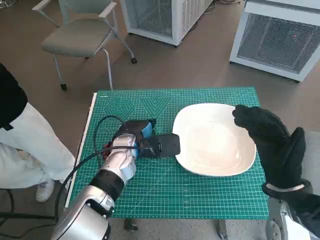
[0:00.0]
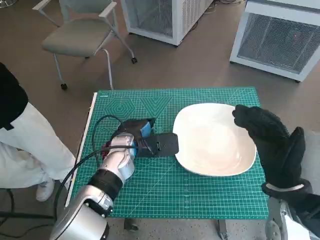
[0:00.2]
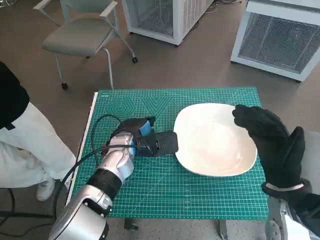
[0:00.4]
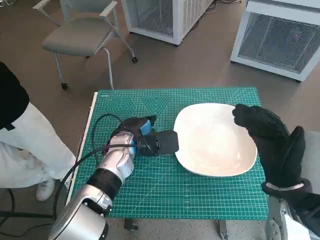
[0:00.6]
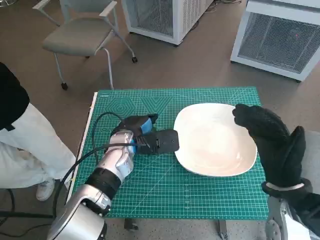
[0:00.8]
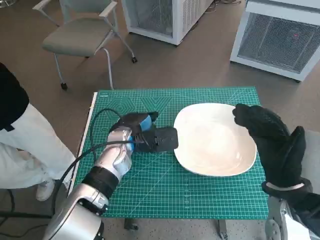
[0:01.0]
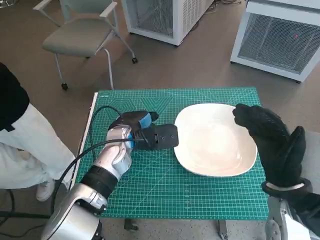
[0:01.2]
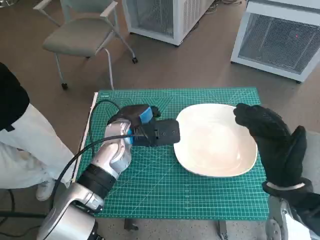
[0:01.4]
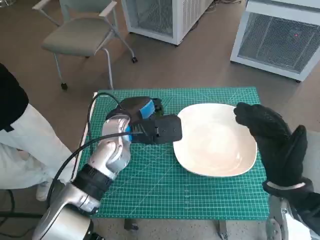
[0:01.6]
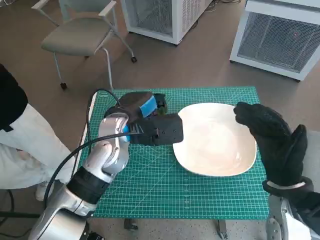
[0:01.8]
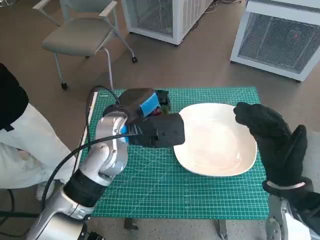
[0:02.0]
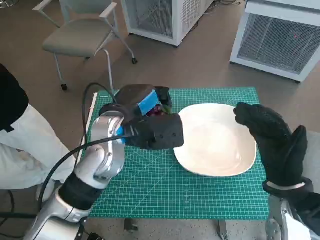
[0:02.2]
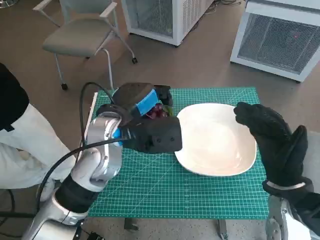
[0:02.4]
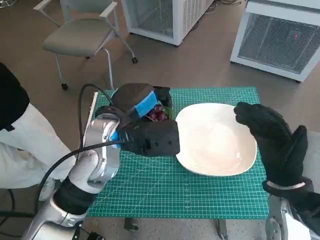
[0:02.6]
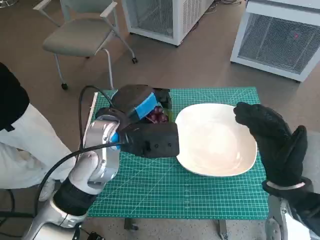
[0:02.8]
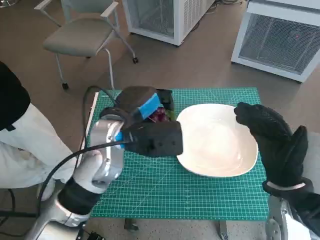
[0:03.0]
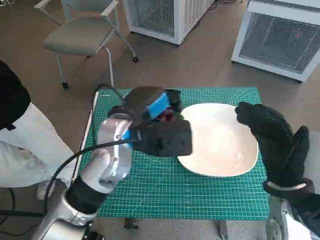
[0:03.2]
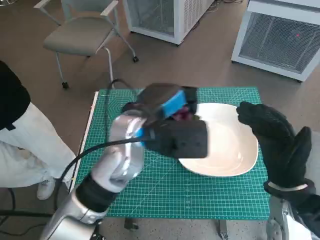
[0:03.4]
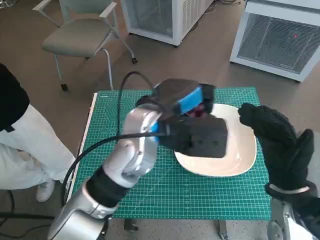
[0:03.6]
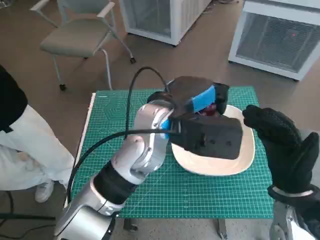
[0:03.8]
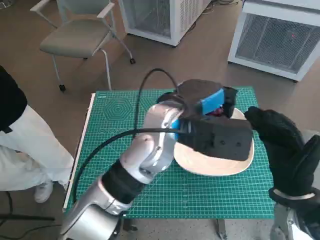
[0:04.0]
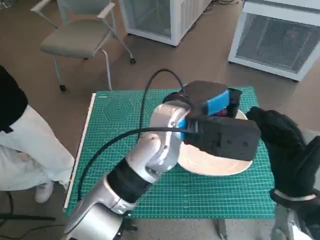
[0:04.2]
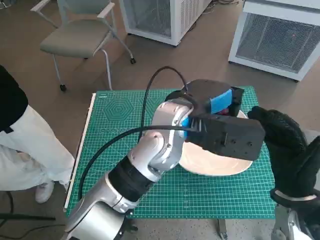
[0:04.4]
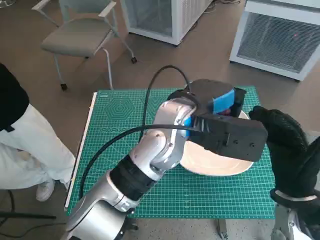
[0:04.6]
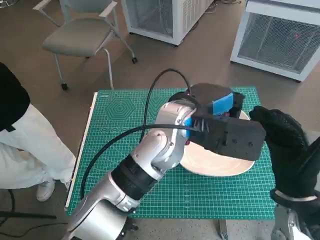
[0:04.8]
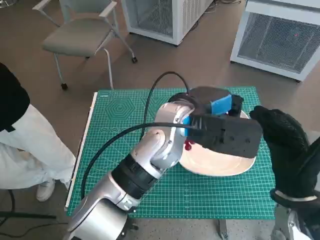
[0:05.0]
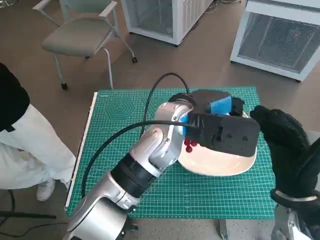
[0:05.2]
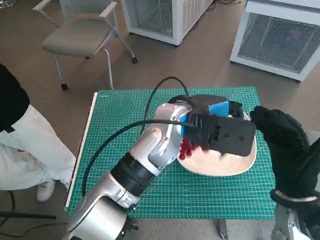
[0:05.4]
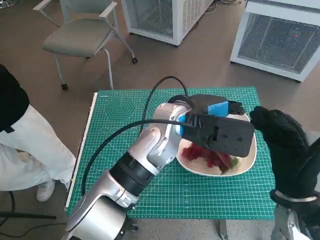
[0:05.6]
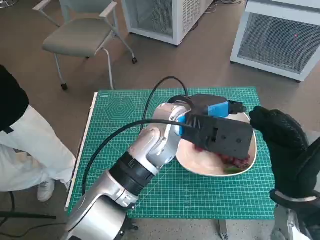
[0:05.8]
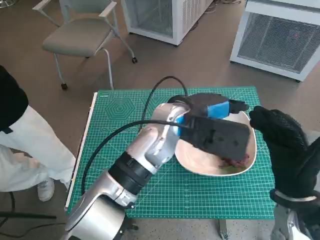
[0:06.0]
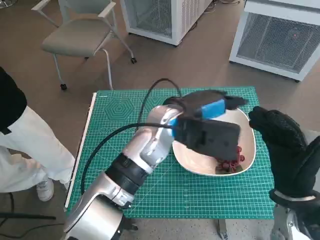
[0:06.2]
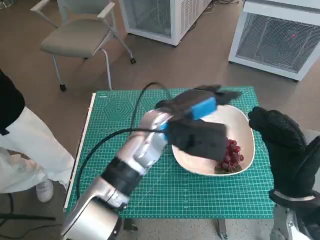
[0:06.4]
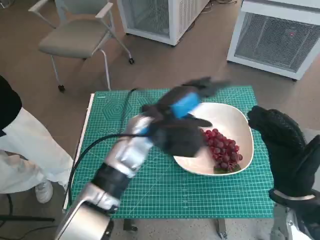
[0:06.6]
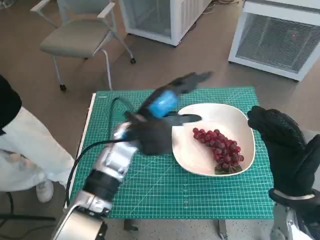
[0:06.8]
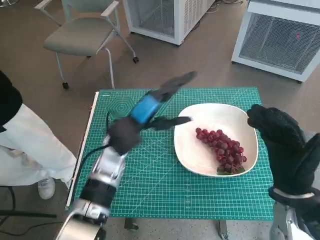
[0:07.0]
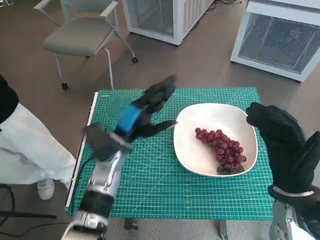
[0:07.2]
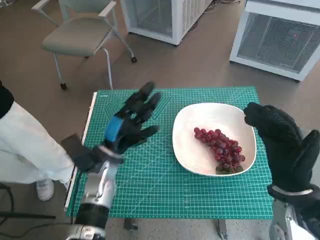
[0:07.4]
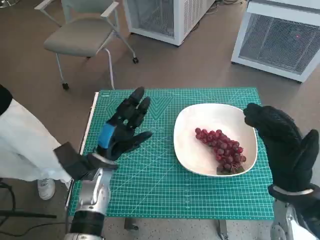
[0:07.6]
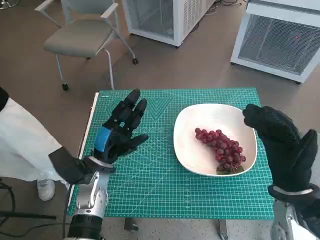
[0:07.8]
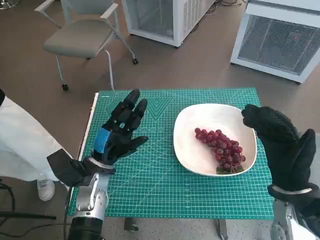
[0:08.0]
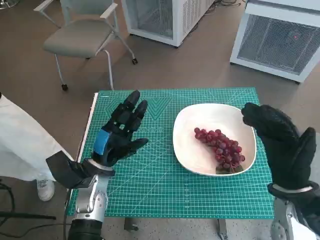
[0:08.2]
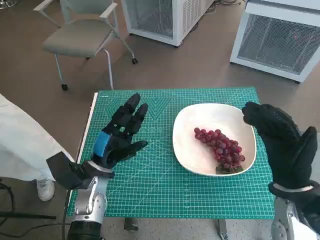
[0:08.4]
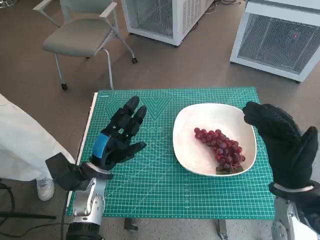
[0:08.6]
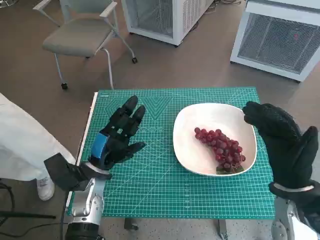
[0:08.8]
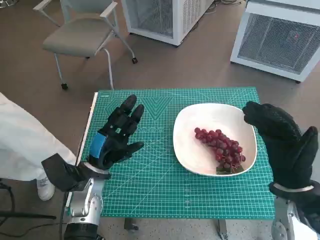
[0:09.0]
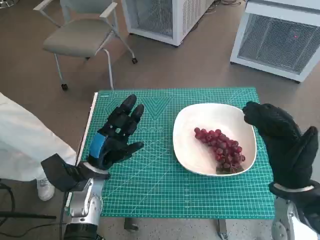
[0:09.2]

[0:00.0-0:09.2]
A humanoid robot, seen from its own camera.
Task of the whole recording: Pick up the grapes and put them on the plate.
Step, 0:00.4 to 0:05.8: Place the grapes in the plate with left hand.
0:00.0 to 0:01.6: The left hand shifts some 5 cm upward.
0:01.6 to 0:03.0: The left hand moves about 5 cm.
0:03.0 to 0:04.6: The left hand shifts approximately 10 cm to the right.
0:04.6 to 0:06.2: The hands move only a little.
0:06.2 to 0:07.6: The left hand travels to the left and downward by roughly 20 cm.
0:07.6 to 0:09.2: The hands move only a little.

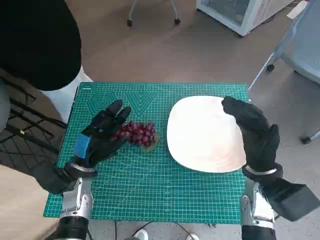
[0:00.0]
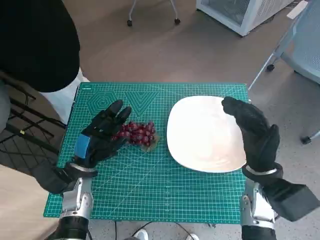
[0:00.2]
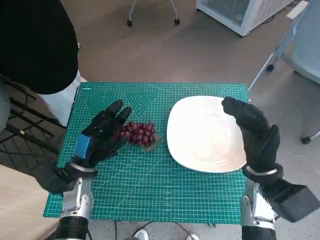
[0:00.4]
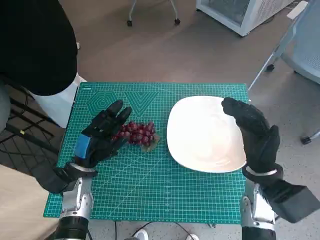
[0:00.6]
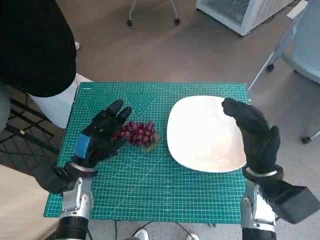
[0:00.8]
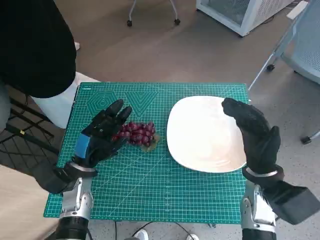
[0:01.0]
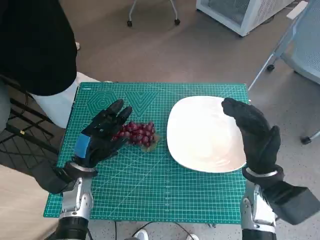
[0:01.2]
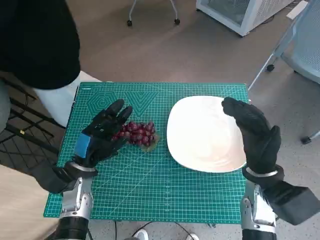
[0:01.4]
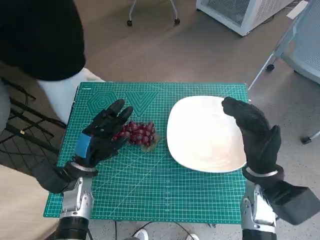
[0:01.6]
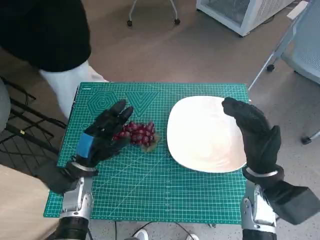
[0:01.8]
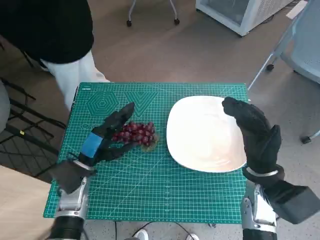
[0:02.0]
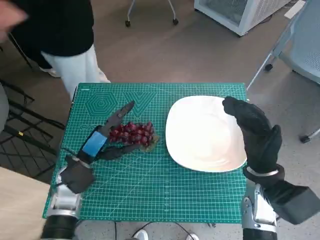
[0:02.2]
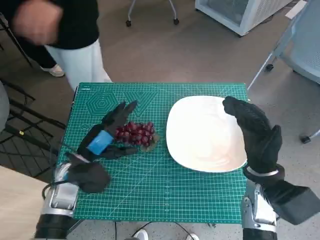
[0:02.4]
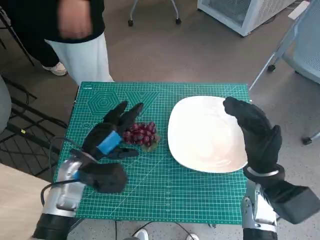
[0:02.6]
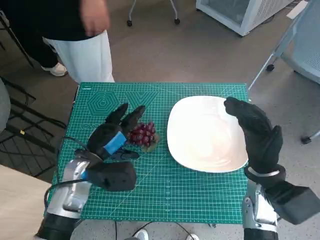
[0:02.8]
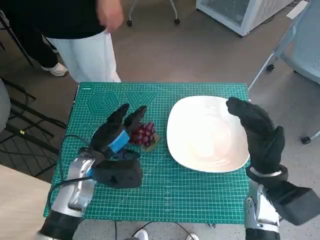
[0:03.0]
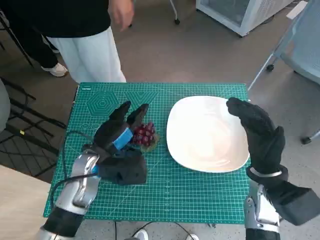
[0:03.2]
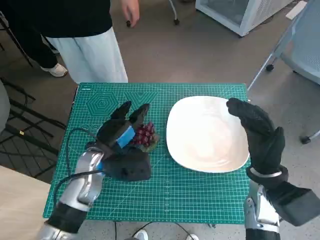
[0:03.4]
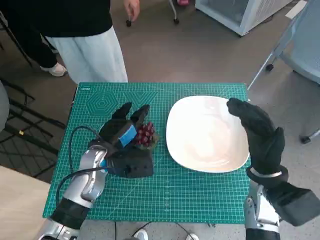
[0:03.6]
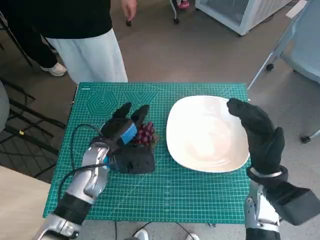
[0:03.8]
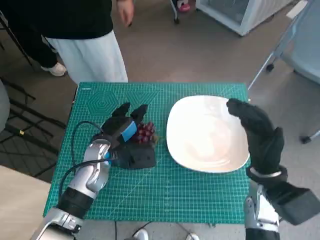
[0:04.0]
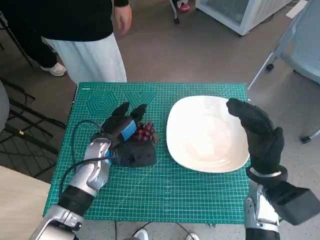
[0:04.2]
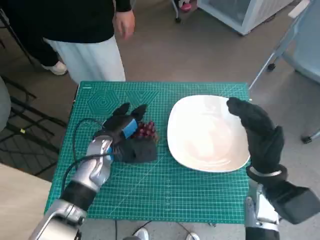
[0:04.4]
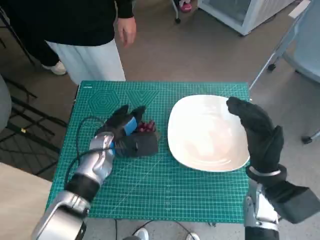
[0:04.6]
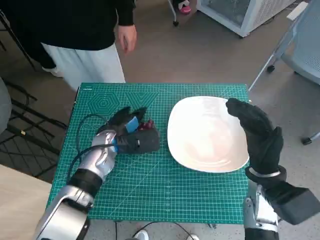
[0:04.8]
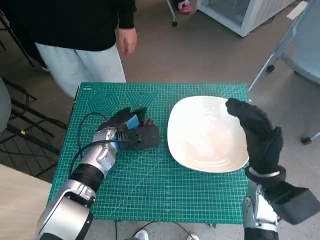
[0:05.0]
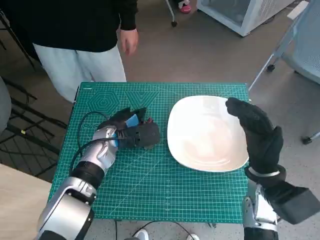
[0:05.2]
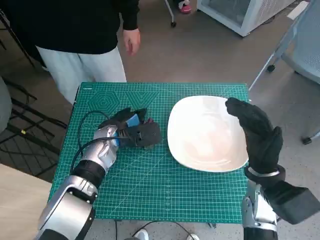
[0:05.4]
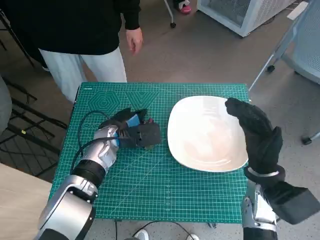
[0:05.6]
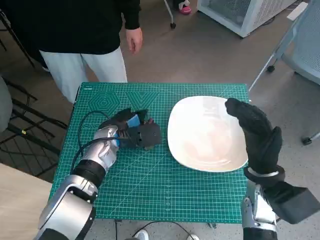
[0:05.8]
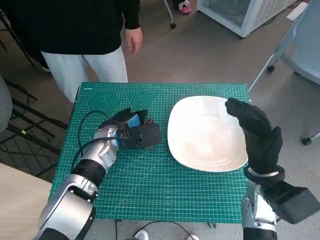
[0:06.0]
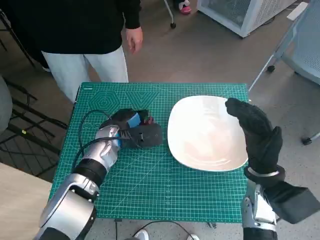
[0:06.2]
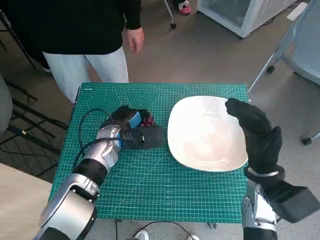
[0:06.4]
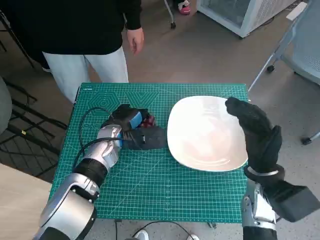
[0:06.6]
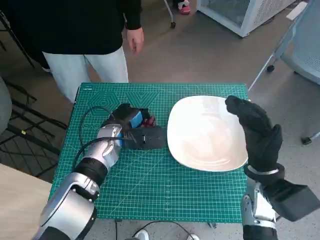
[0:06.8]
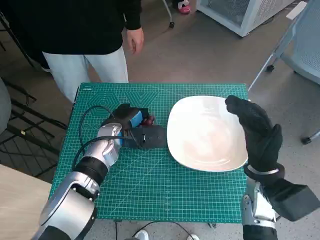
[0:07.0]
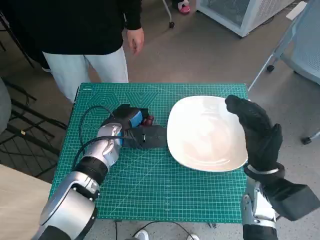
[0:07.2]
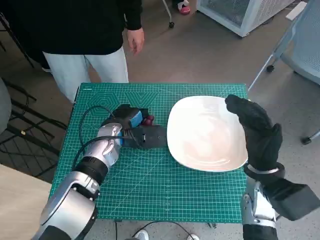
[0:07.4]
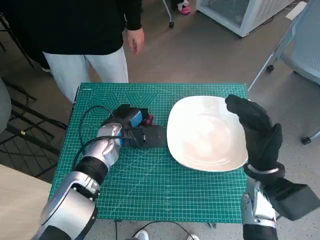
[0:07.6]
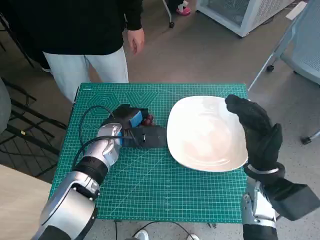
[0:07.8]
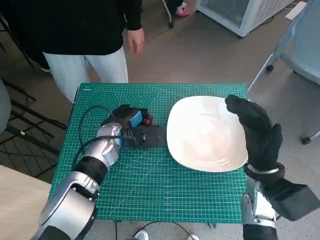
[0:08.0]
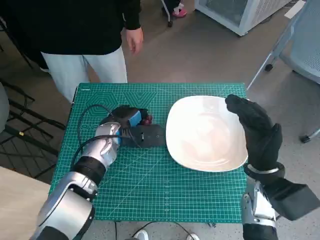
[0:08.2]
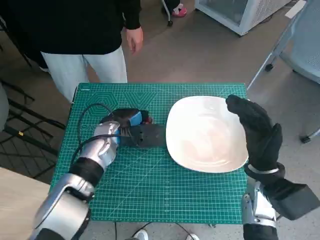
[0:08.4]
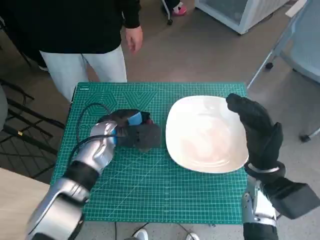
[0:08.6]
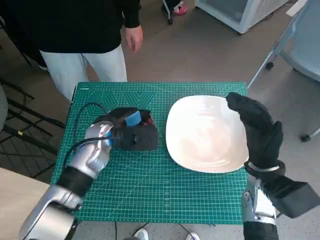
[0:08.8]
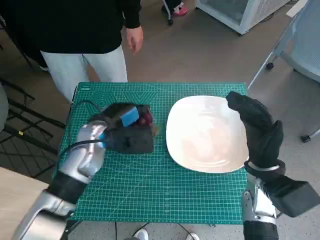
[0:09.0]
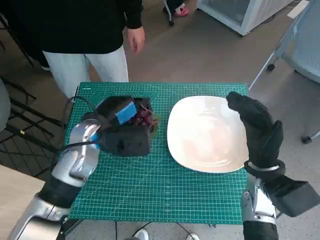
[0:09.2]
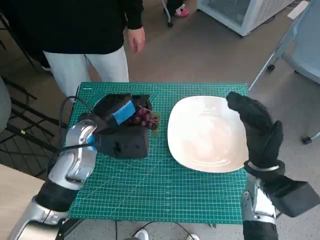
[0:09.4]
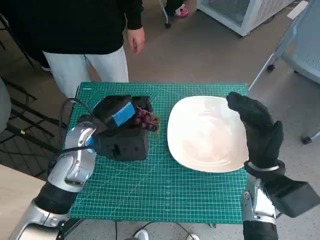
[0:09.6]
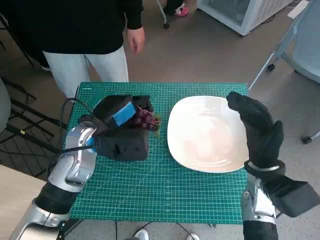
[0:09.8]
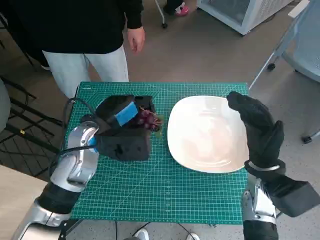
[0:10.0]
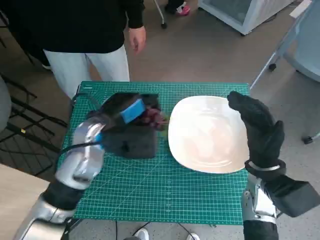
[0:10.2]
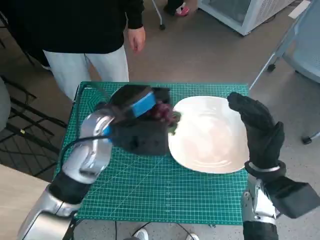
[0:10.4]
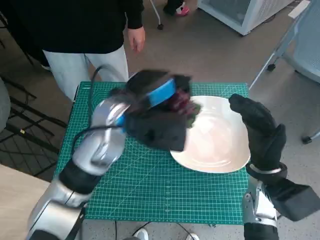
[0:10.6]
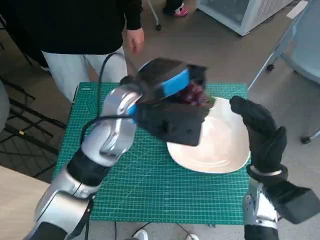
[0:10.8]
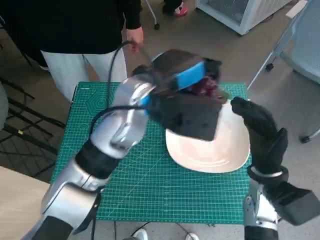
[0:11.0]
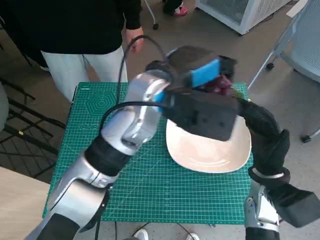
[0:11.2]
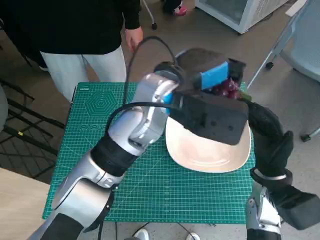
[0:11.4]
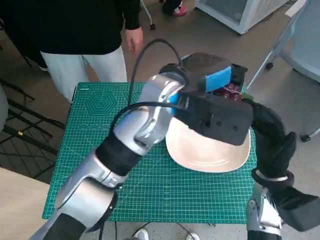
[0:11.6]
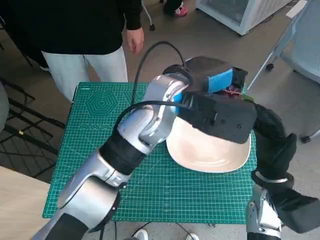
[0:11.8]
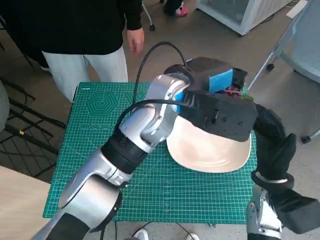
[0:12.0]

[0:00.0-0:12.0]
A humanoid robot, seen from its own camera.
Task of the whole recording: Pick up the grapes and put them on the plate.
Step, 0:00.0 to 0:06.6: Grasp the grapes with left hand.
0:01.6 to 0:03.0: The left hand changes place by about 5 cm.
0:03.0 to 0:04.4: The left hand moves approximately 5 cm.
0:04.4 to 0:07.6: There are only small adjustments of the hands.
0:07.6 to 0:09.0: The left hand moves about 5 cm.
0:09.0 to 0:10.4: The left hand goes about 5 cm upward.
0:10.4 to 0:12.0: The left hand shifts approximately 15 cm to the right and upward.

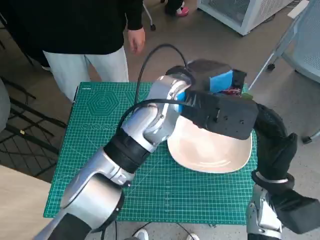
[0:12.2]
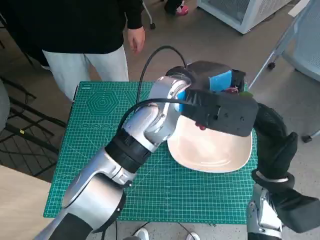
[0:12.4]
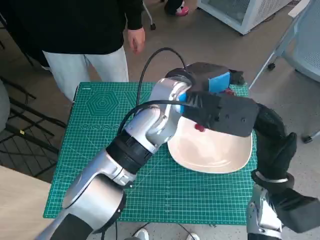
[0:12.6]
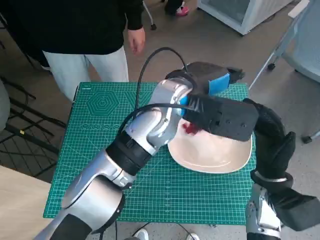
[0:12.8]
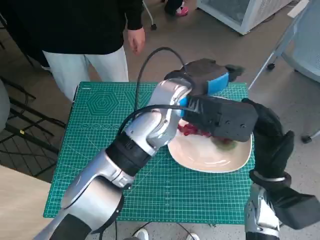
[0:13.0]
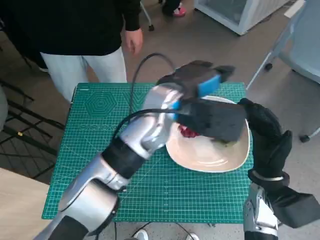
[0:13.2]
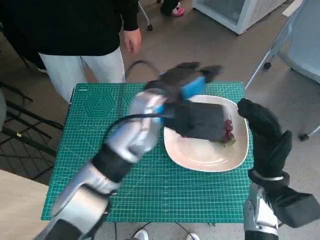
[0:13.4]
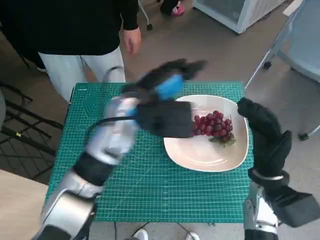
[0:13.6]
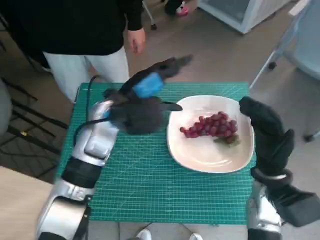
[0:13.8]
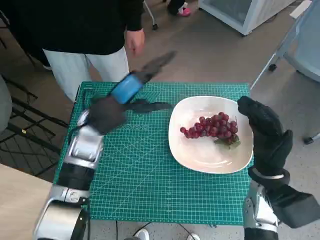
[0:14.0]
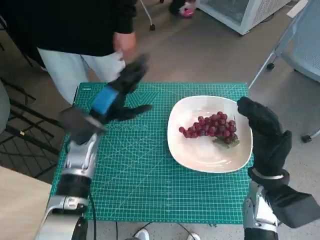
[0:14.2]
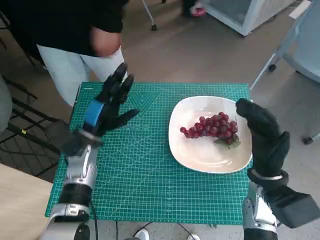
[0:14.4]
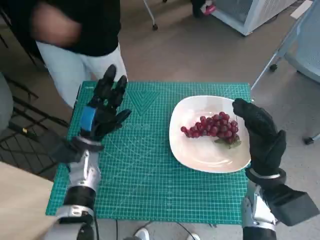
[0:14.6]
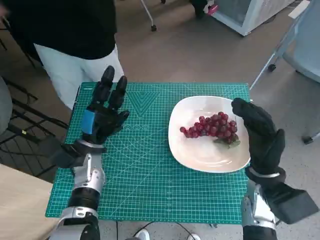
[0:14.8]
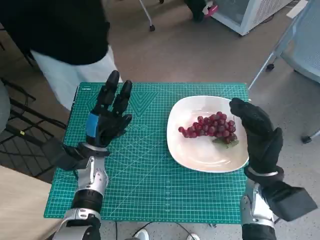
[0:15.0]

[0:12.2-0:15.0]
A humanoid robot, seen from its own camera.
Task of the whole recording: Pick up the grapes and put them on the plate.
0:12.2 to 0:13.6: The left hand moves to the left, approximately 5 cm.
0:13.6 to 0:15.0: The left hand moves downward and to the left, some 20 cm.
